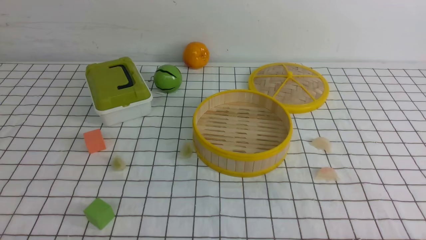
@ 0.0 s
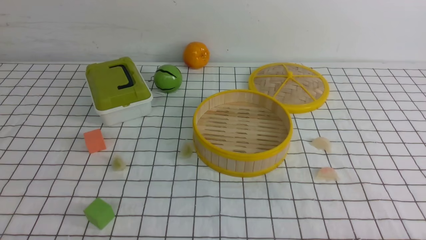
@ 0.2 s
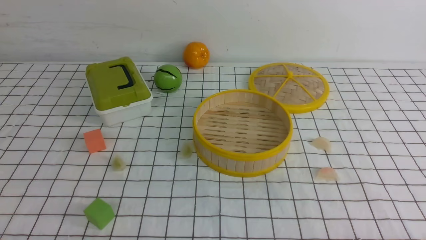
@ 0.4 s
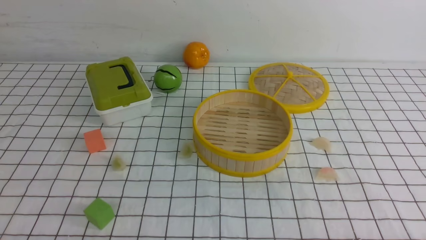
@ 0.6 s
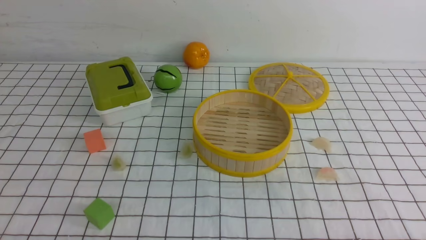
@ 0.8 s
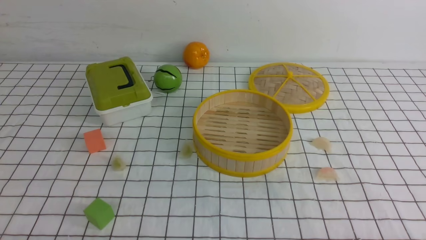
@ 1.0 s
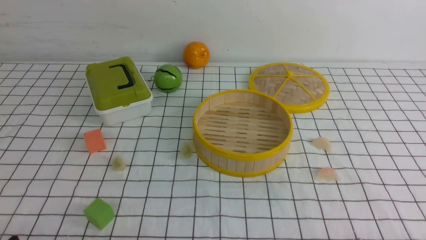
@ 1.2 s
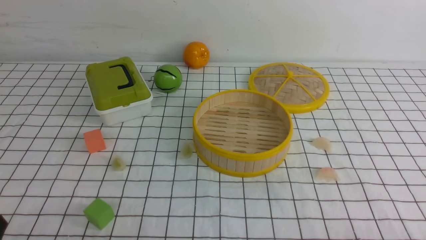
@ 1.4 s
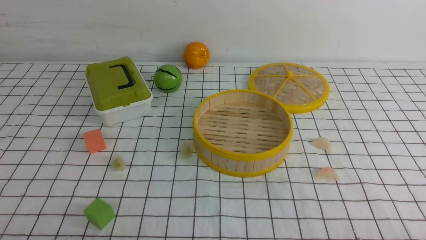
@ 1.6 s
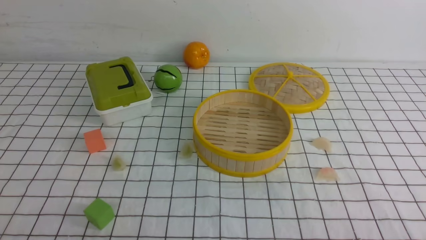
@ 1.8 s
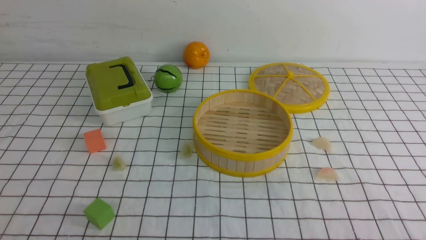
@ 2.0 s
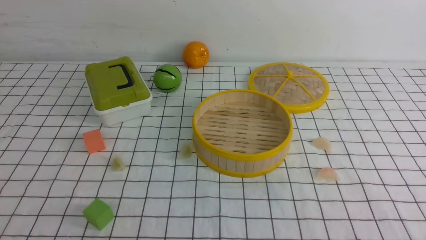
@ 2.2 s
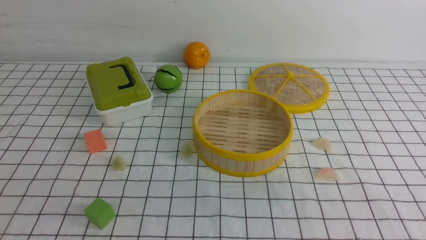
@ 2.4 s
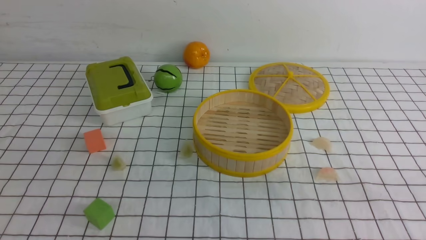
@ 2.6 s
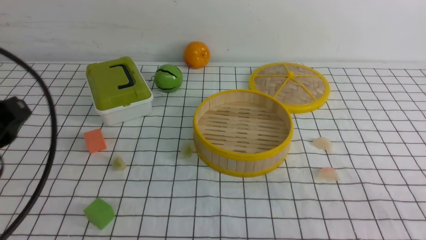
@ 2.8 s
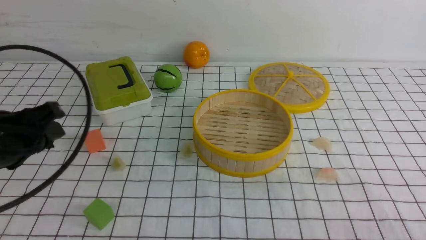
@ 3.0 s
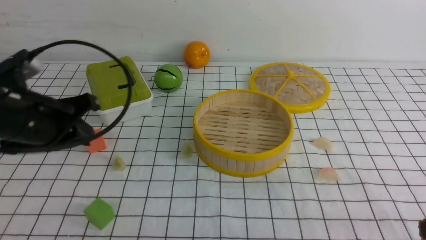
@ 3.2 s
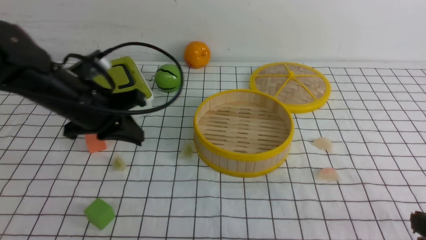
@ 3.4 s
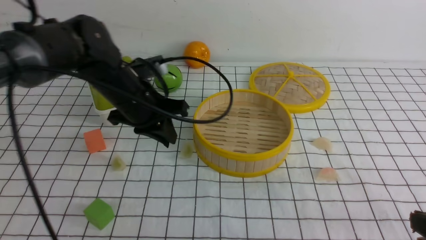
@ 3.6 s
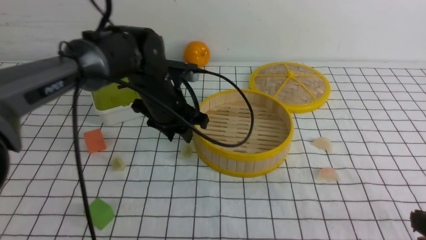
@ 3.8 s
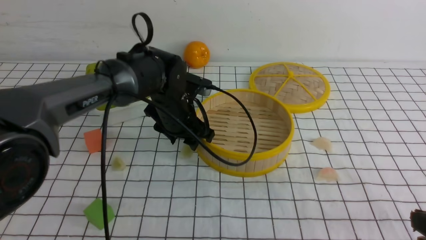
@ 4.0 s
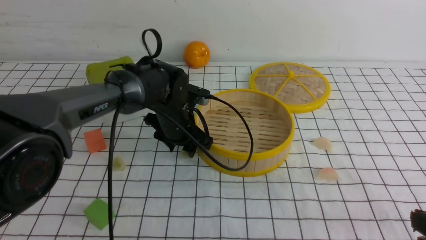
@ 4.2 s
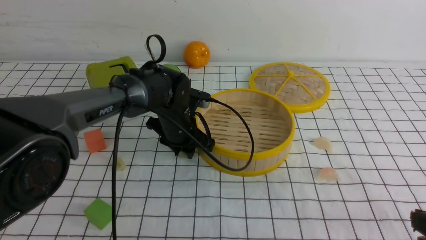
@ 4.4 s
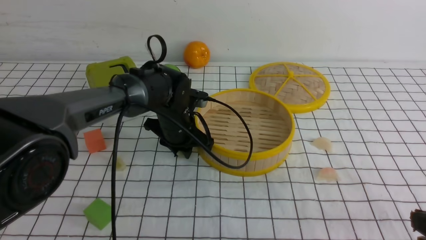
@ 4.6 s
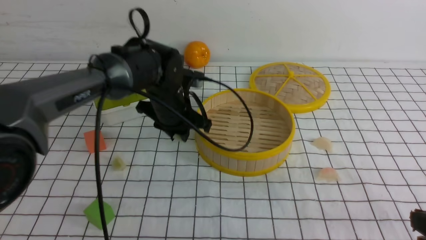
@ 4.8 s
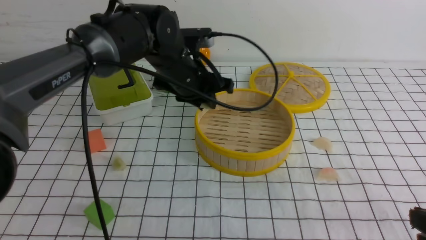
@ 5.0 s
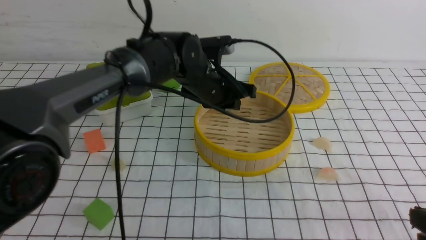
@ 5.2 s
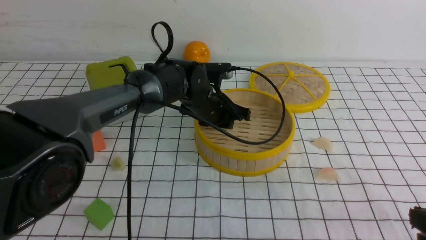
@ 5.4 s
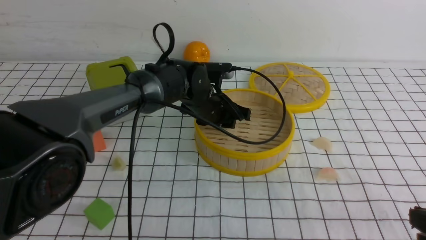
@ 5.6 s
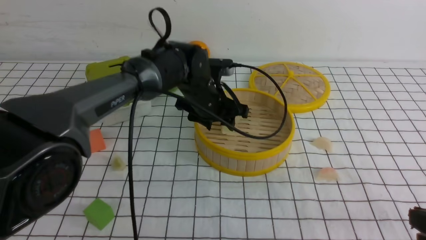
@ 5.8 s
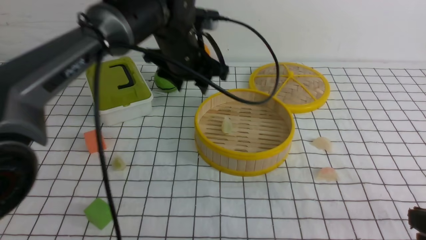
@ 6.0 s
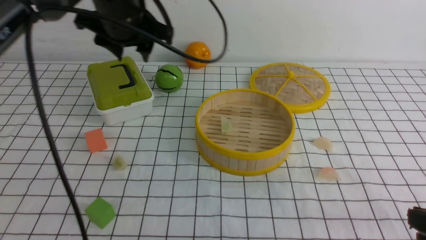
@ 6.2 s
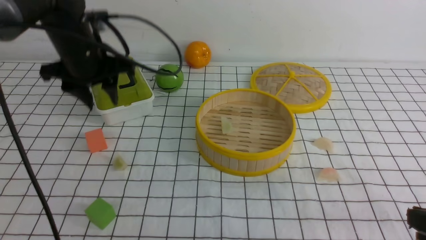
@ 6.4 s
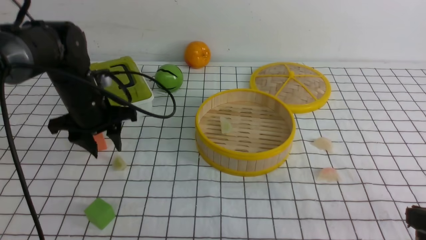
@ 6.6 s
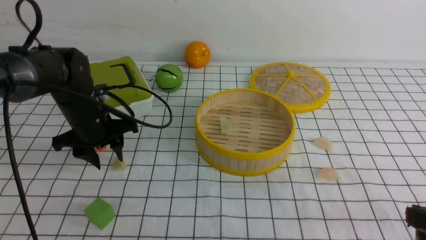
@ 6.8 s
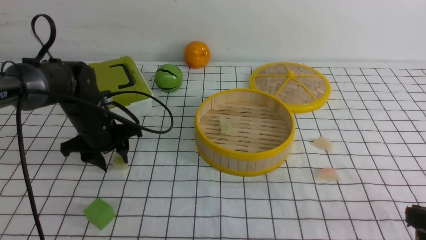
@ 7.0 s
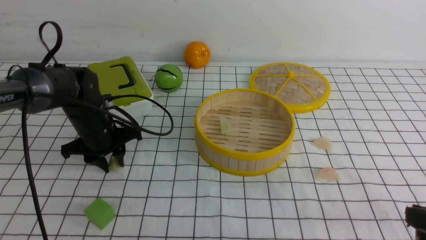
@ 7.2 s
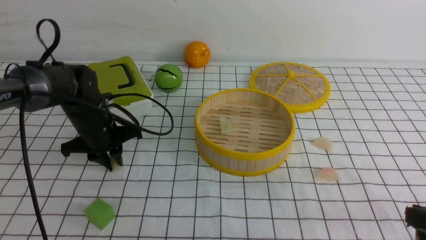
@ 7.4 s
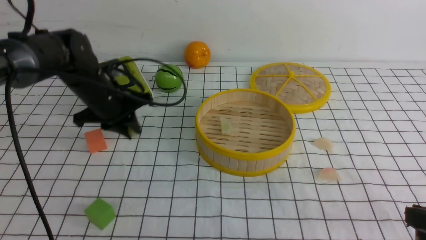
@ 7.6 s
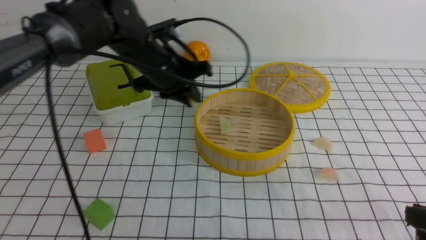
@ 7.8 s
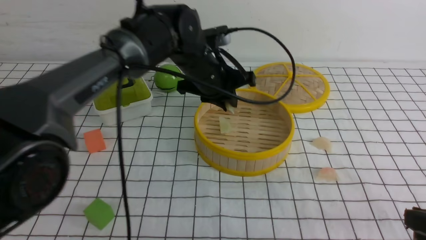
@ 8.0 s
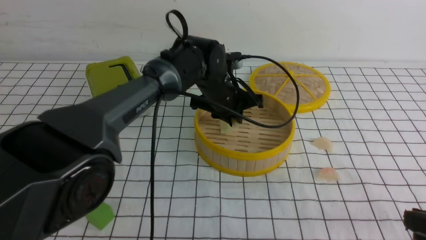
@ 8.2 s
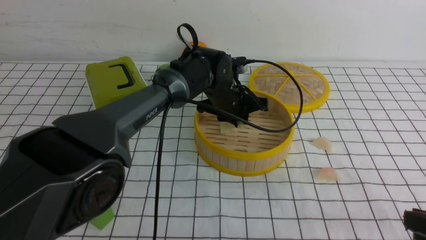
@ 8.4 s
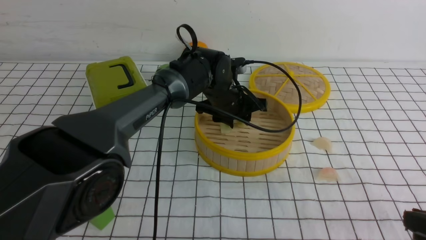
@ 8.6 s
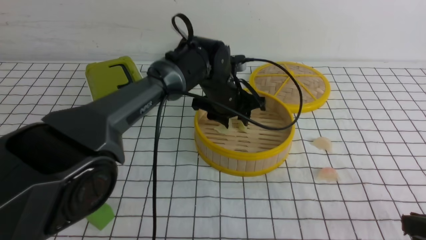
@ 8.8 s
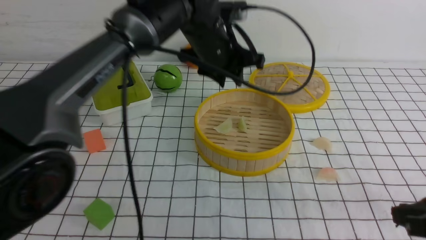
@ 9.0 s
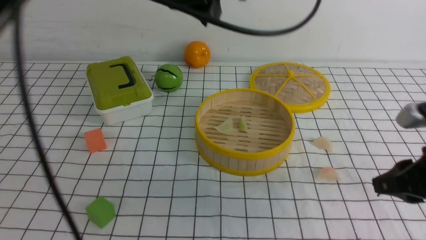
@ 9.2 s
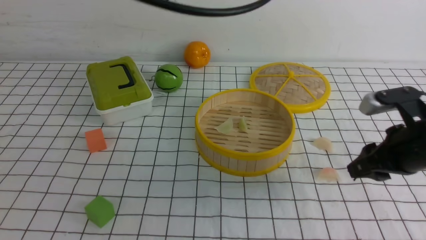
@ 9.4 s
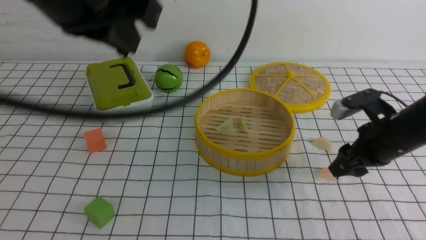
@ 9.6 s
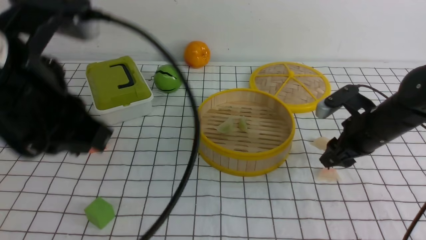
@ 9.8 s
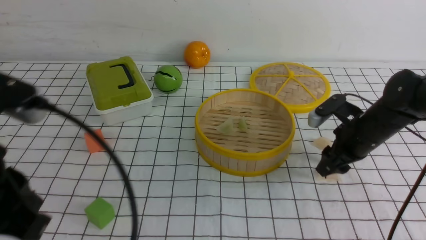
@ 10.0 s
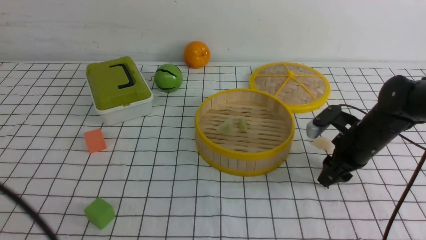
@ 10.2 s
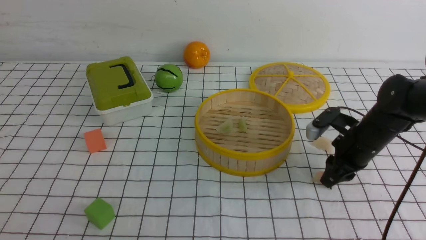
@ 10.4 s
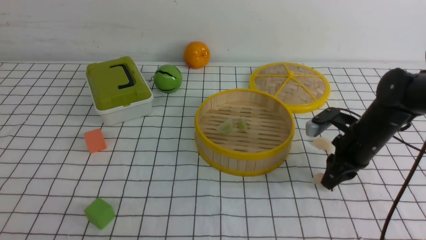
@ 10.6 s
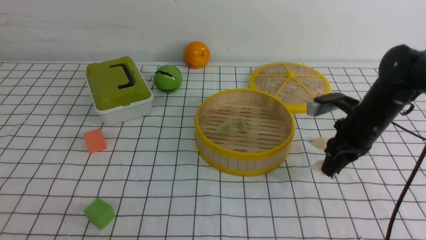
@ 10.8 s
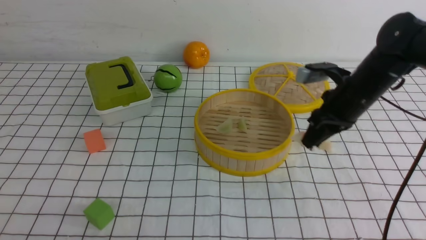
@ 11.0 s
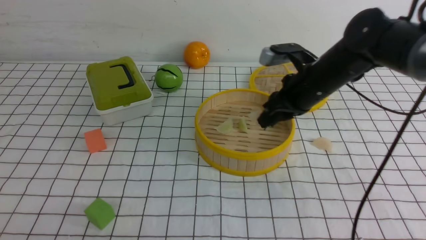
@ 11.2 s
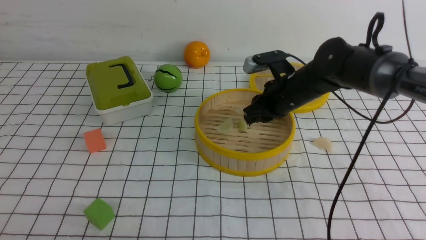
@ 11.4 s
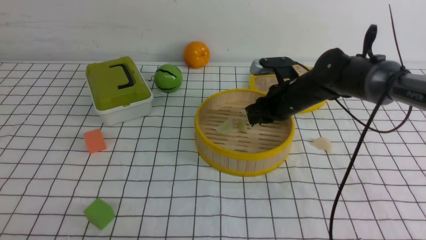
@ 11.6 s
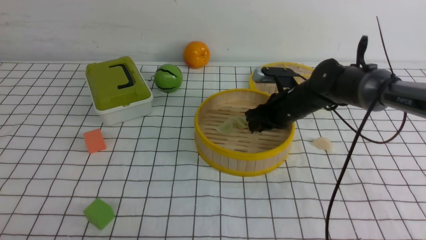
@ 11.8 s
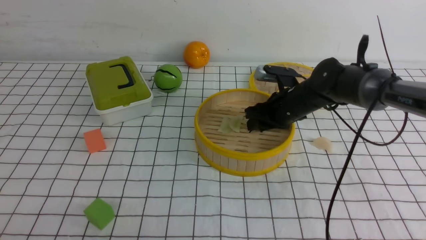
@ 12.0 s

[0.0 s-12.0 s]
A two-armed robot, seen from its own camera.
Task of the whole recording: put the dumplings into the steamer on the table with the white tablecloth.
Step, 0.0 to 5.0 s: use the left arm to grab a dumpling.
Step, 5.2 to 6.0 s: use the left arm to put the dumpling into the steamer.
Step, 6.2 to 7.6 s: use the left arm to grab a dumpling.
Step, 7.8 to 9.0 s: use the left arm to put the dumpling into the steamer.
Step, 9.2 to 10.6 s: use the right arm to grab a dumpling.
1.6 to 3.0 s: The left gripper travels forward and upward by some 20 cm.
3.0 to 4.4 s: The left gripper is displaced forward, to the right and downward by about 30 cm, and closes, then opens again.
4.4 to 6.0 s: The left gripper moves up and down over approximately 10 cm, changing direction 2 times.
6.0 to 7.6 s: The left gripper goes up and down, some 15 cm each way, reversing 2 times, and closes up.
7.6 to 9.0 s: The left gripper travels to the right and upward by roughly 20 cm, and opens up.
9.0 to 10.4 s: The left gripper goes about 40 cm backward and to the left, and closes up. Meanwhile the right gripper travels forward and downward by some 25 cm, and opens its fingers.
10.4 to 12.0 s: The right gripper moves to the left and forward, about 15 cm, while the left gripper moves downward, about 10 cm.

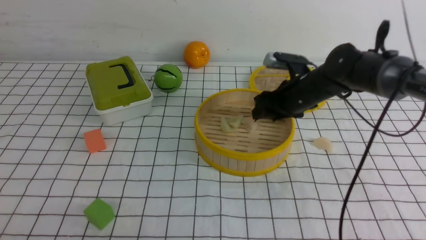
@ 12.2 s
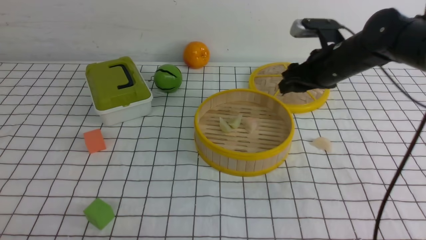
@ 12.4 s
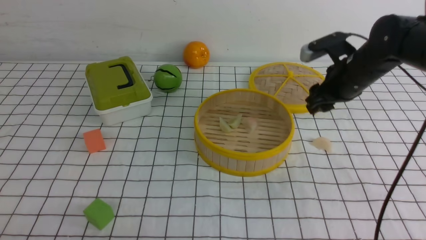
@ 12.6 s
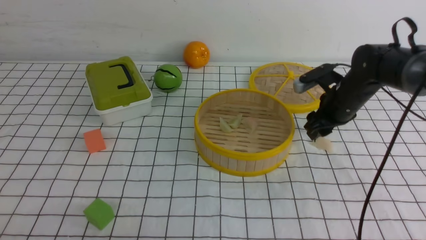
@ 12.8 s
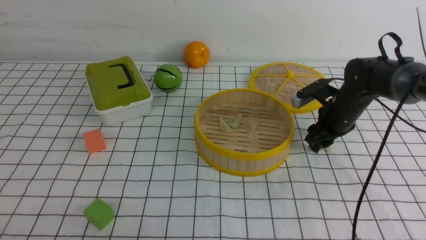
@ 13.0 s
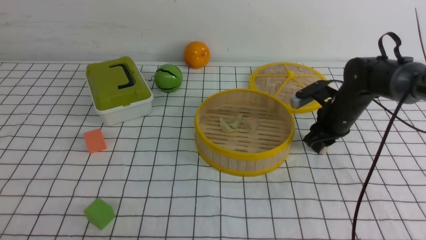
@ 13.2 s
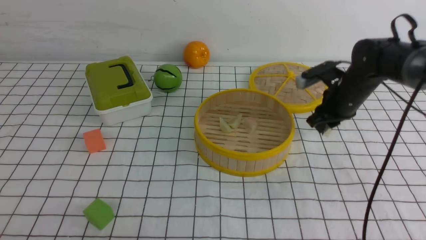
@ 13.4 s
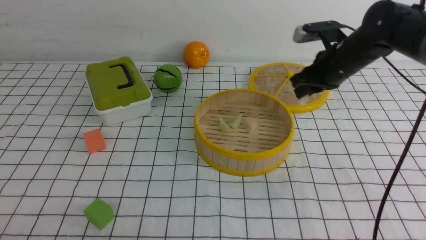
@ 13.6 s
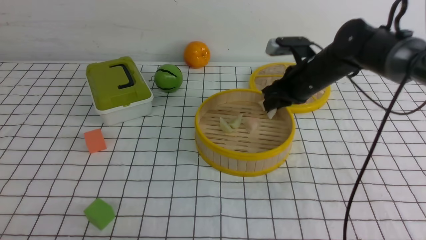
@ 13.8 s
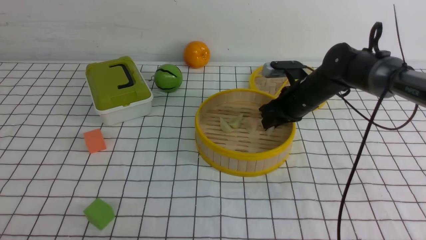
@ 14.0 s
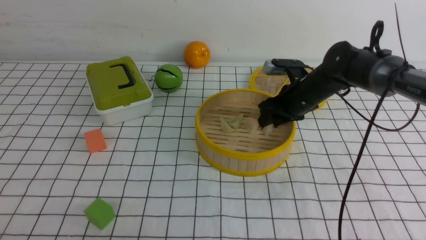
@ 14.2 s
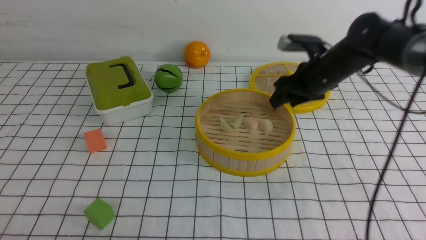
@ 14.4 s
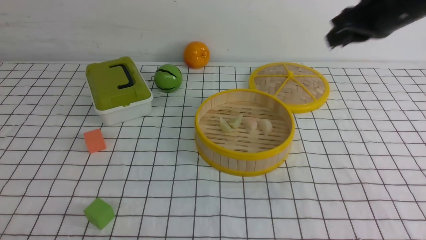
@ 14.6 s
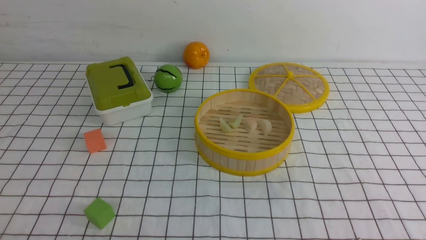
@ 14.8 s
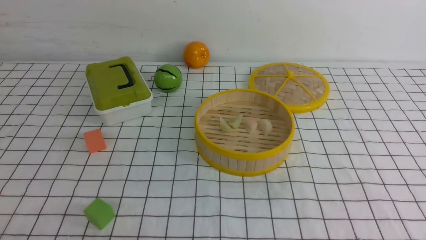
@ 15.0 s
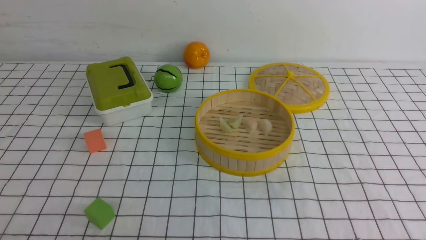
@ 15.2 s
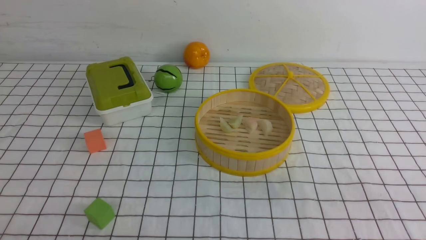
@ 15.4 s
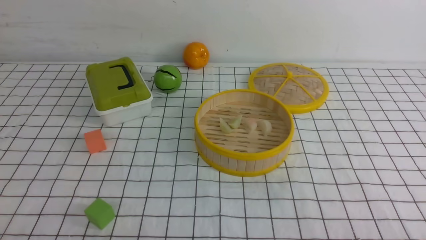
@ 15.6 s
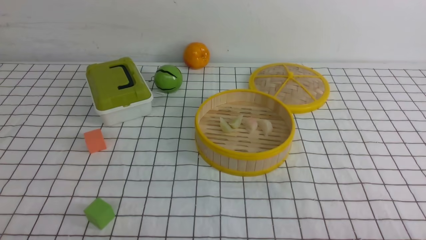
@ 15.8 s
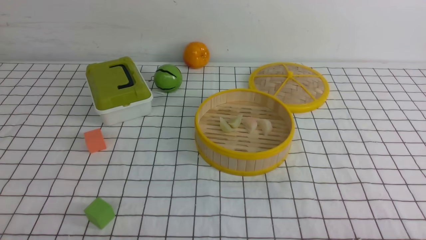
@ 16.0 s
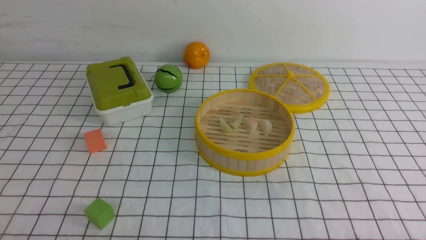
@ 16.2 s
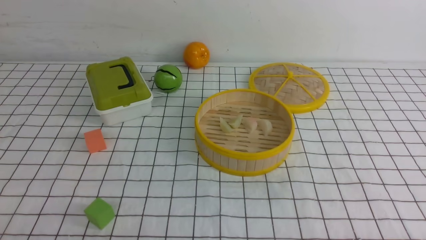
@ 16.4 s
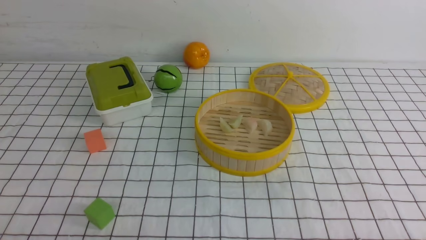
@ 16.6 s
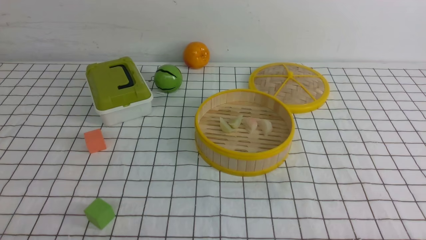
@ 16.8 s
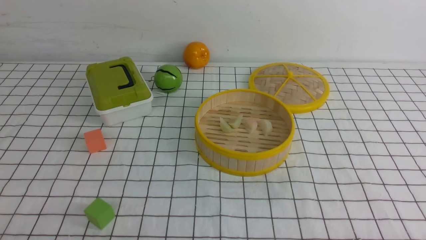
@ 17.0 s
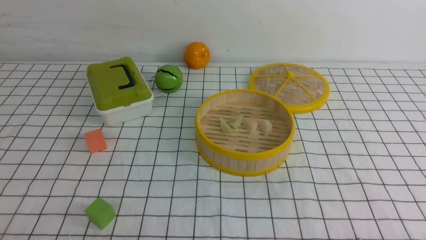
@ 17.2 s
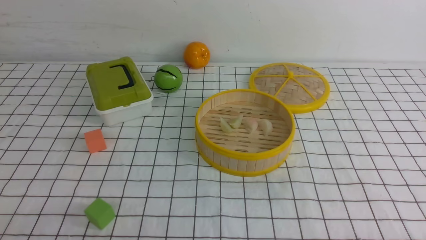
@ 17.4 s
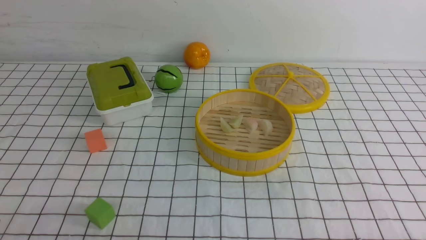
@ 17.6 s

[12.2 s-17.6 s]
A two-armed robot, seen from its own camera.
Task of the whole recording: put the dumplings into the steamer on the table with the white tablecloth.
Step, 12.4 to 13.8 s: use the right arm to grab a dumpling.
Step, 14.0 to 15.0 s: use the right arm to put the dumpling into the steamer.
12.2 to 13.6 s: The right gripper moves up and down over about 10 cm, changing direction 2 times, and closes.
13.6 to 15.0 s: The right gripper is displaced upward and backward by roughly 30 cm, and closes its fingers.
